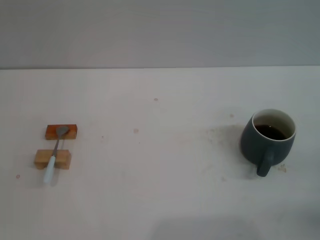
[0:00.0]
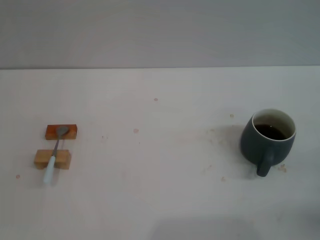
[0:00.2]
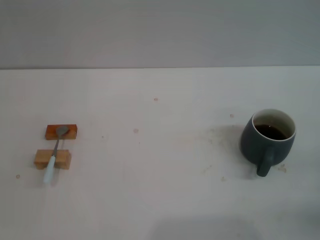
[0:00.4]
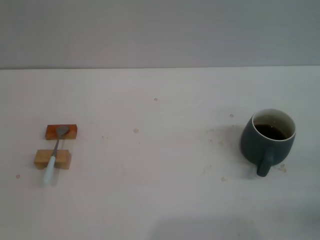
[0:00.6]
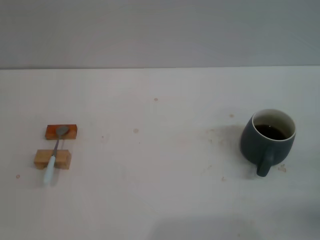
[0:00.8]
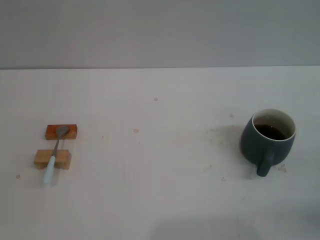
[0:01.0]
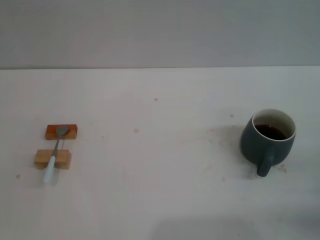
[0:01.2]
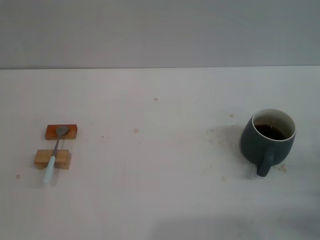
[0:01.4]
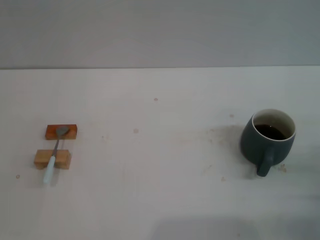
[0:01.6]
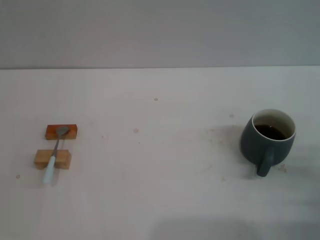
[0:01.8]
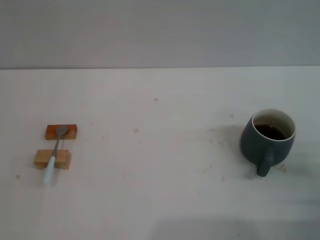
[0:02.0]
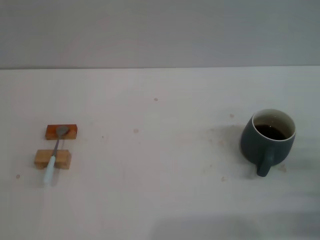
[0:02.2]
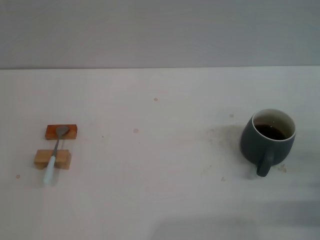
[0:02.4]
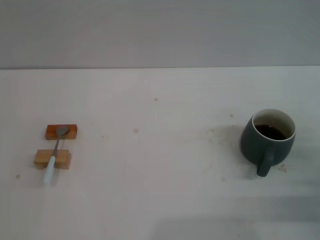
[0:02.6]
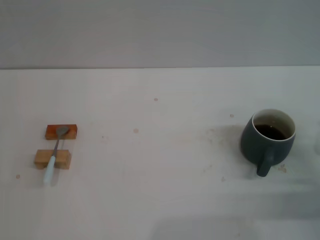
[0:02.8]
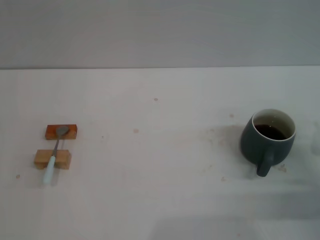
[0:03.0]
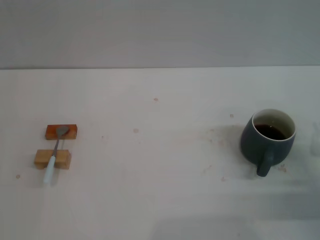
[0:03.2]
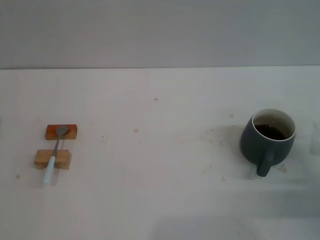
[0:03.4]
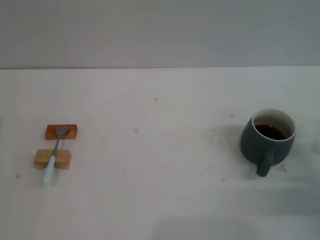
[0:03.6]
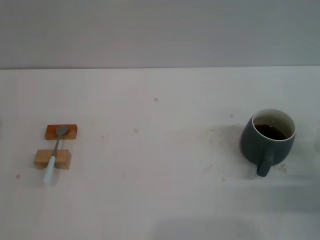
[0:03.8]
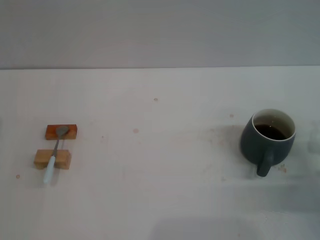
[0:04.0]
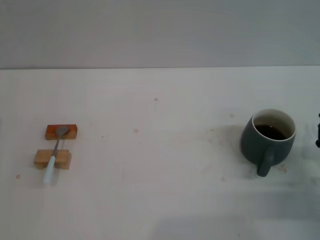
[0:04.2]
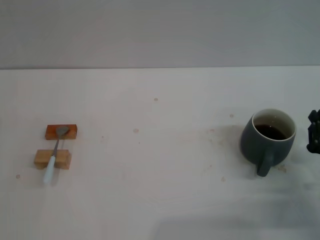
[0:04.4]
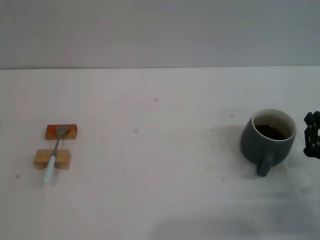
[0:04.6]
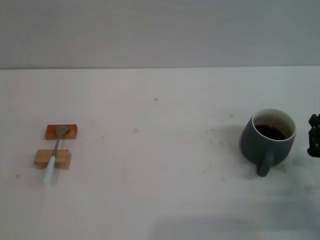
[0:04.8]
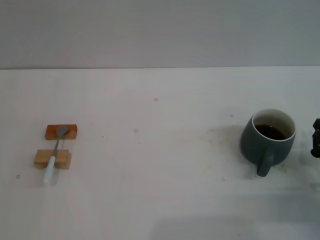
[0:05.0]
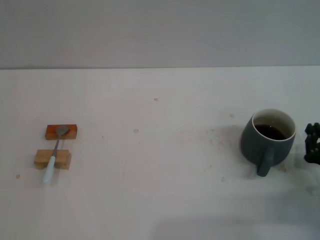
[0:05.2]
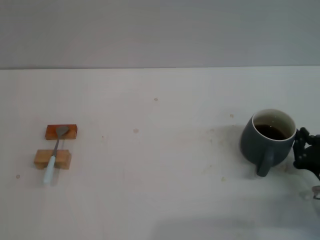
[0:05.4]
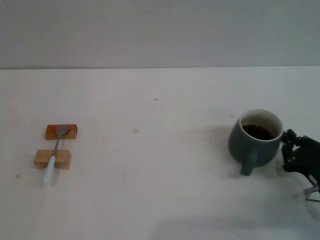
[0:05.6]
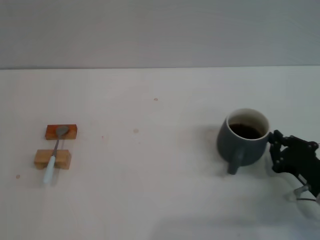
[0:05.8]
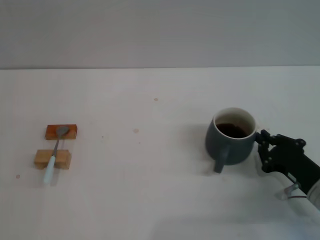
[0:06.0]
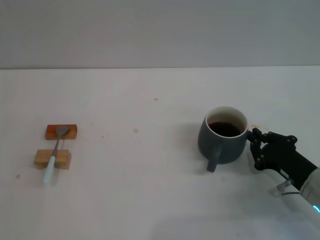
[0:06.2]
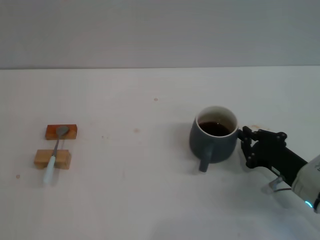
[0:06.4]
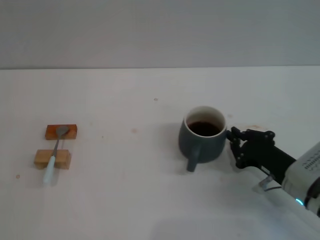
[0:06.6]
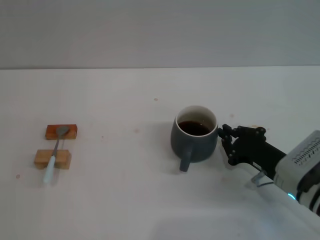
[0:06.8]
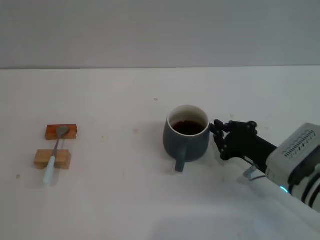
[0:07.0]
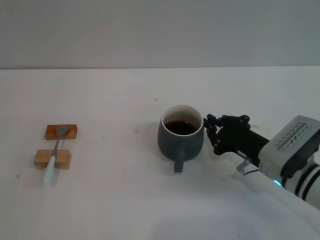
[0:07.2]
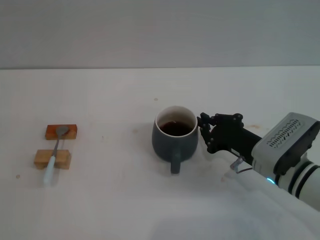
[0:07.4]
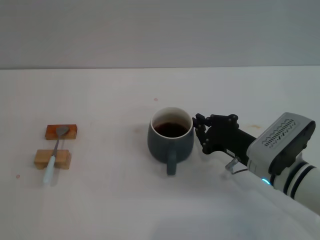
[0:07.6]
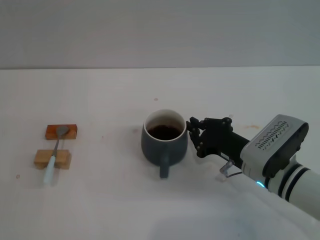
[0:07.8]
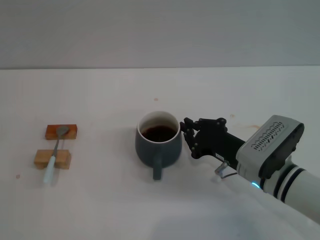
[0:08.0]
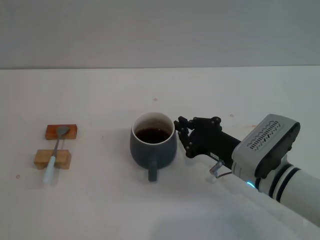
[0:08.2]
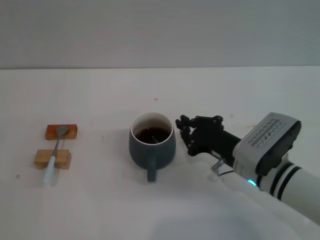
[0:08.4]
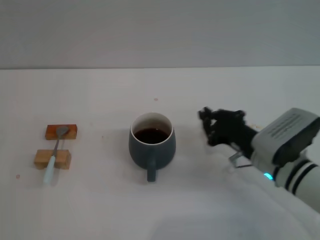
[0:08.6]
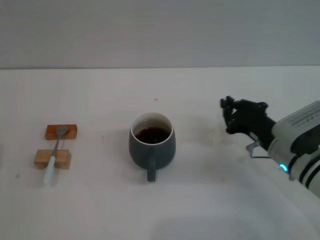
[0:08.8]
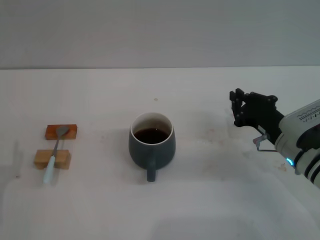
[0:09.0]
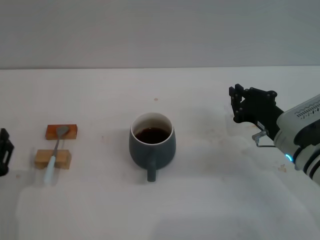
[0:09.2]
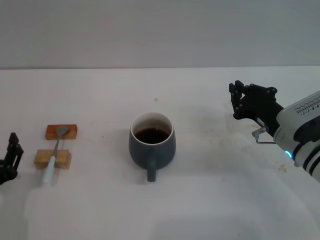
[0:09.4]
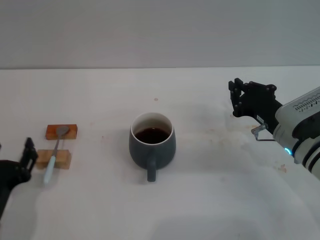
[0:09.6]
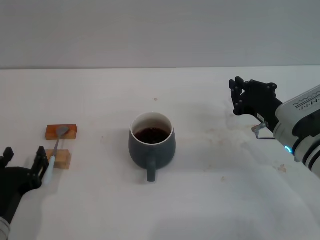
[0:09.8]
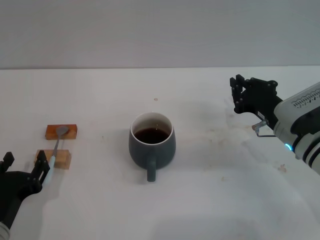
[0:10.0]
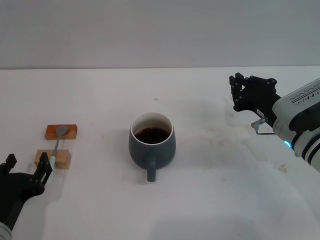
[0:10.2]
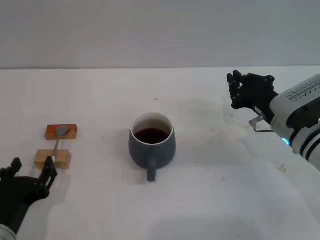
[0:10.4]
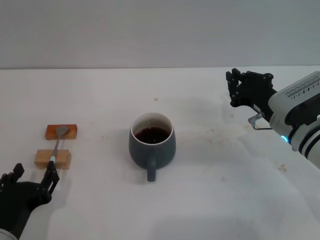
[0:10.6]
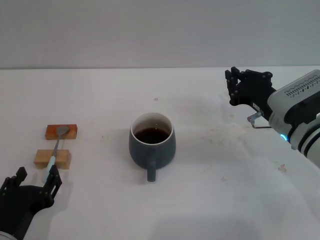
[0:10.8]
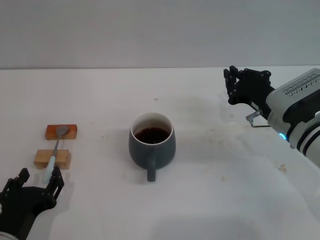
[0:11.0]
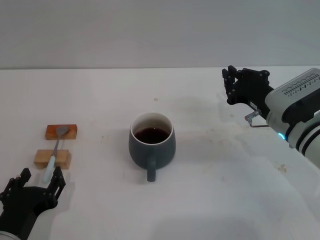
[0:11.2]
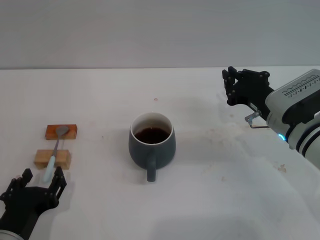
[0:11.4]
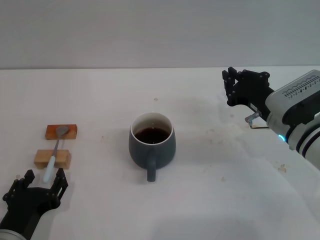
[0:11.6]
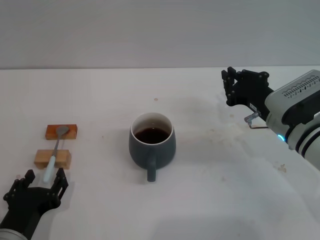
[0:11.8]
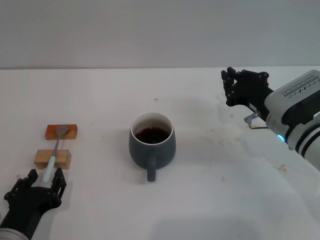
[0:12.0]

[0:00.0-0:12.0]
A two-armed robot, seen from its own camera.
Task of the whole recording: Move the grey cup to the center, lift the blue spoon, stir it three times in the cup, and put the spoon into the cup.
Step, 0:00.0 to 0:08.4: Move the cup with coffee to the center of view with the right gripper.
0:06.0 to 0:07.6: The right gripper shifts about 10 cm to the left and forward.
0:07.6 to 0:09.0: The left gripper shifts by about 5 cm.
0:09.0 to 0:10.4: The left gripper moves to the right, approximately 5 cm.
0:10.4 to 0:12.0: The grippers make only small movements.

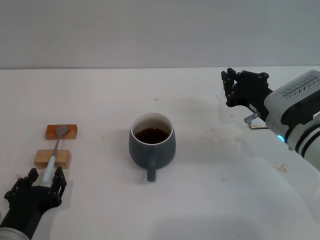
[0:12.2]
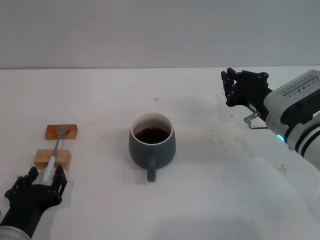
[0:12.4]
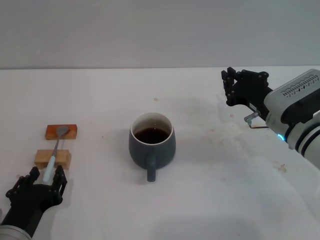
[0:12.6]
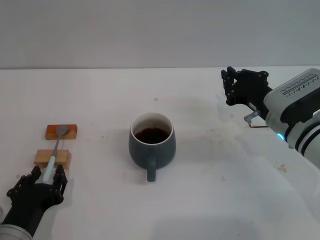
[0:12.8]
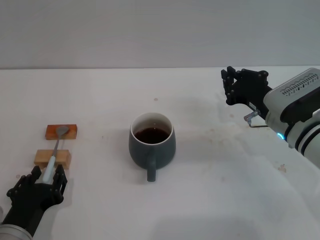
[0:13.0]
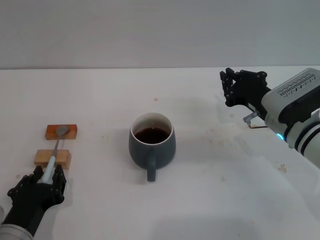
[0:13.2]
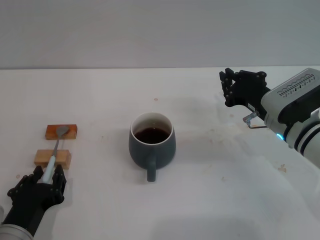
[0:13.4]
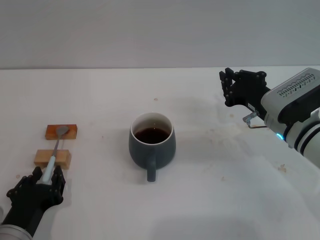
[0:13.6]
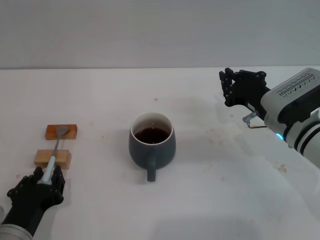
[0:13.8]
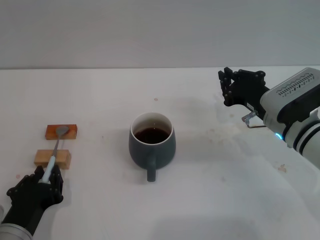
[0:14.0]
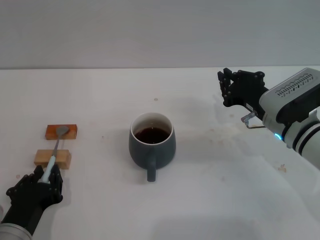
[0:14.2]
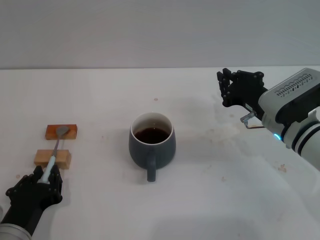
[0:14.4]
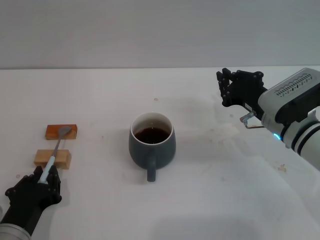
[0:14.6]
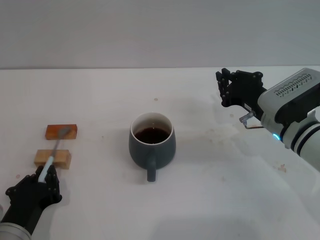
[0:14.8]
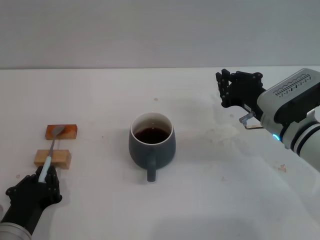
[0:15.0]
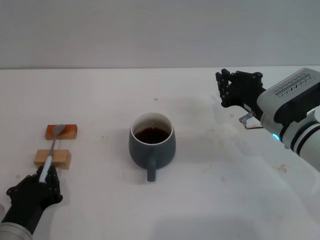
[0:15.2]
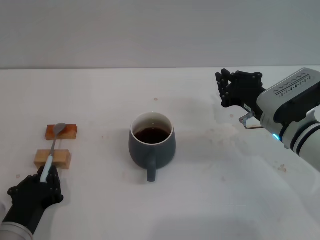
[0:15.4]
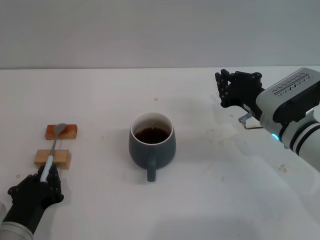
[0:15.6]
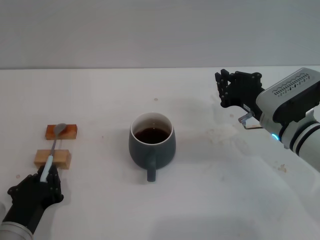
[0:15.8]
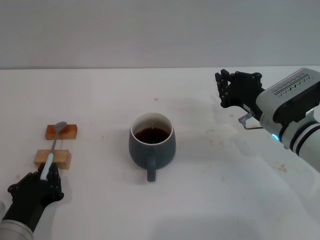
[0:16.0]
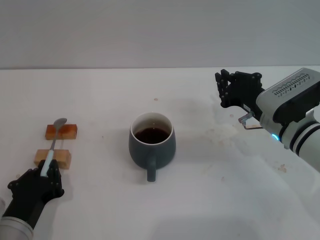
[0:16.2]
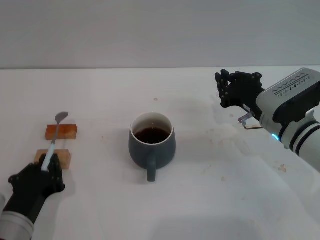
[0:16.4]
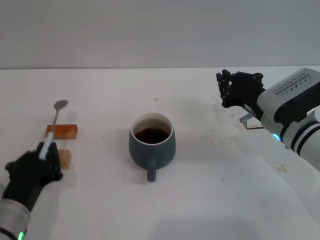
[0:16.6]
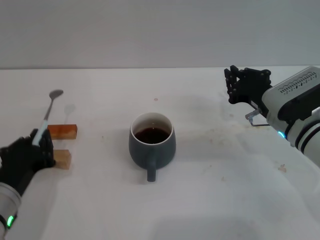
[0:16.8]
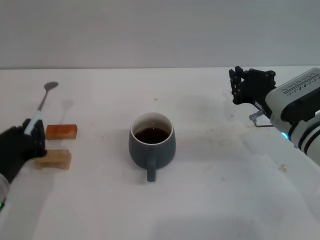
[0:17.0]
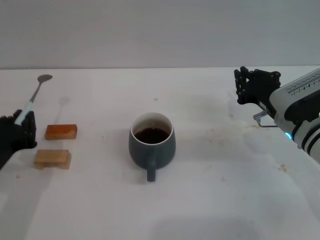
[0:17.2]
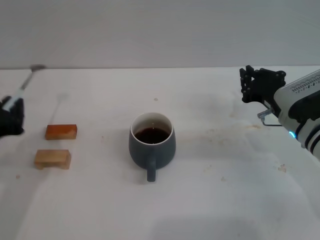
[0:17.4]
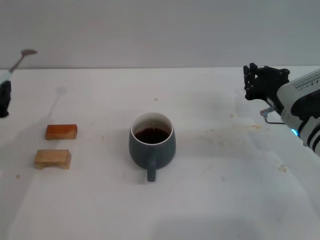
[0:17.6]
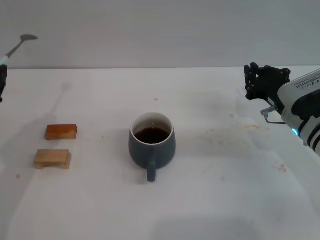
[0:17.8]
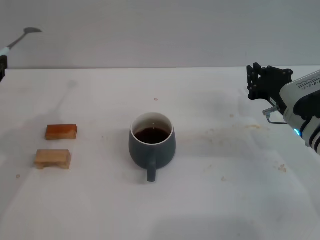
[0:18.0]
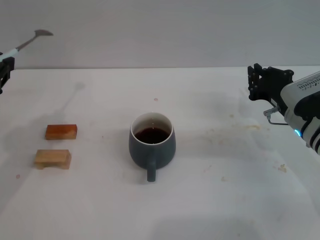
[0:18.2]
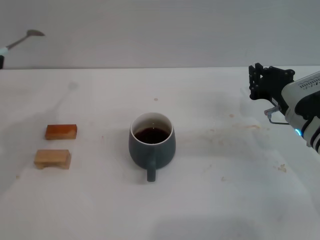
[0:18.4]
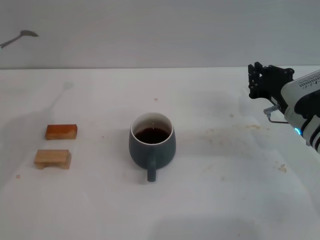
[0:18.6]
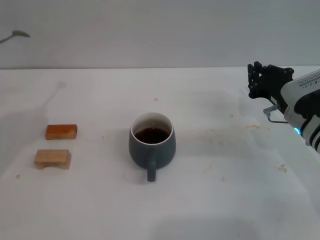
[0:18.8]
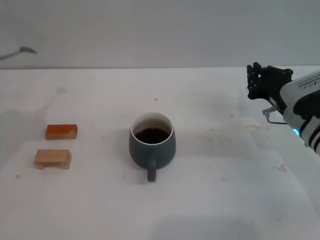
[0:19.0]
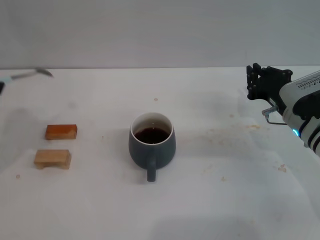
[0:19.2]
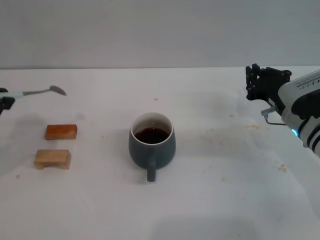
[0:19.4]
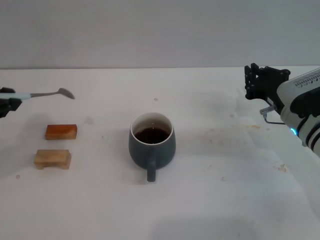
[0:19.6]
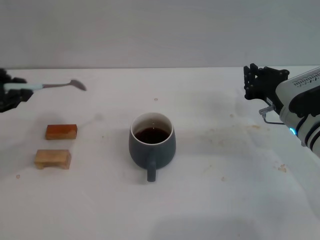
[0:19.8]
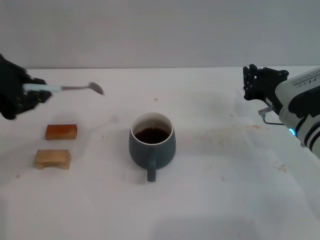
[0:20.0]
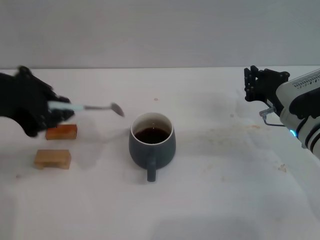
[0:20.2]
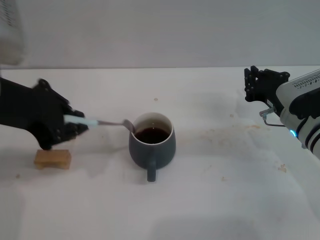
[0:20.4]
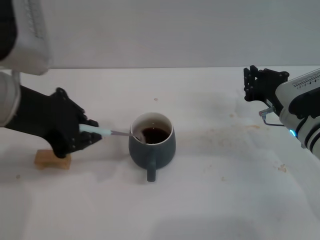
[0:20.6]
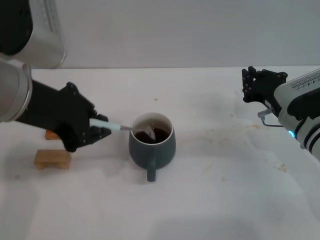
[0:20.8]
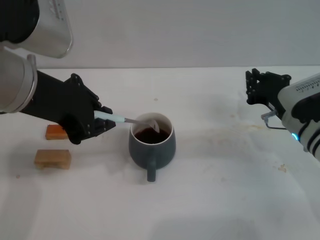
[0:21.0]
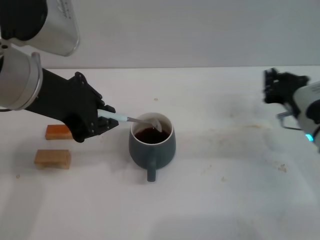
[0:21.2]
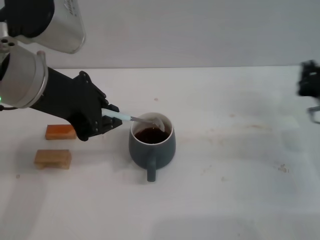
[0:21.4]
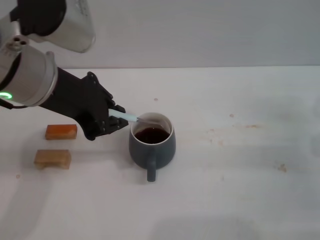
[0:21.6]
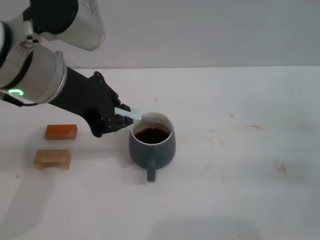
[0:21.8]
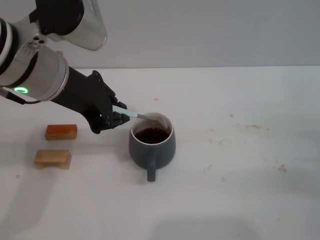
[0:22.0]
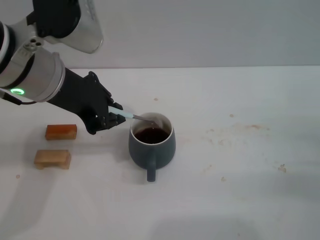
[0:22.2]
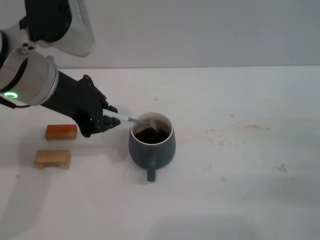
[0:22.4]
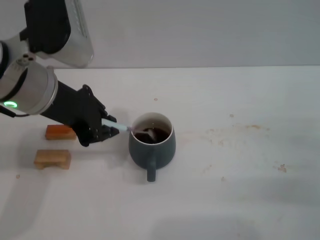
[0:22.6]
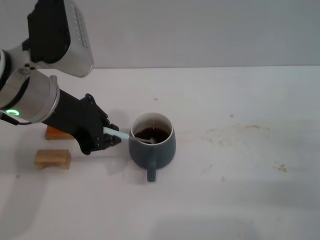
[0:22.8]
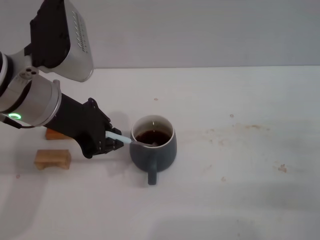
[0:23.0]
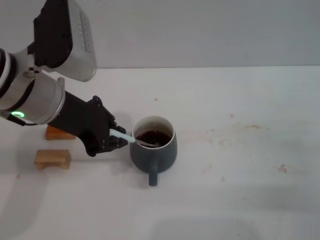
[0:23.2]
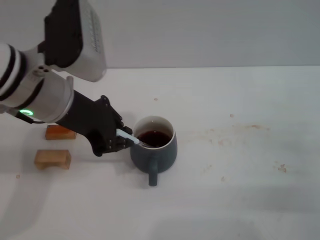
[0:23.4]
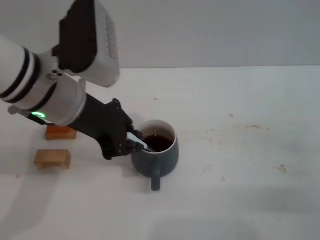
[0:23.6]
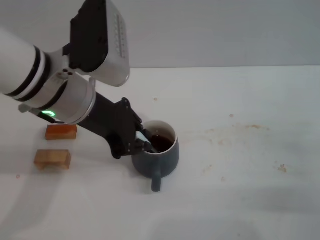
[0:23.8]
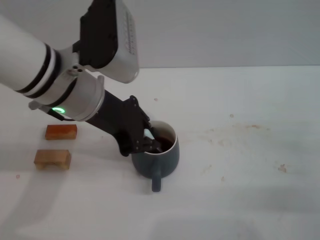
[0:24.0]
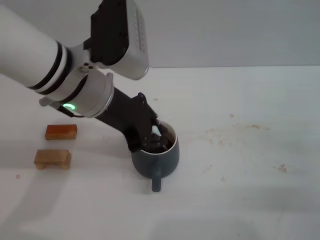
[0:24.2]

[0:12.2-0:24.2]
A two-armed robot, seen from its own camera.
Task of the whole recording: Move the grey cup to the center, lift the blue spoon, stir it three times in the cup, and put the spoon into the cup.
Step, 0:12.2 to 0:16.8: Pick up the spoon with the left gripper.
0:12.2 to 0:15.2: The two grippers keep their place.
0:15.2 to 0:16.6: The grippers make only small movements.
0:16.6 to 0:18.2: The left gripper heads upward, covering approximately 20 cm.
0:18.2 to 0:19.8: The left gripper changes place by some 5 cm.
0:19.8 to 0:21.2: The left gripper is displaced to the right by approximately 10 cm.
0:21.2 to 0:22.6: The right gripper goes roughly 15 cm backward and to the right.
0:22.6 to 0:24.2: The left gripper is displaced to the right by approximately 5 cm.
